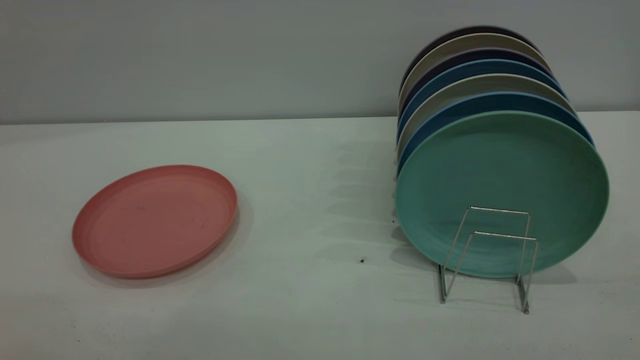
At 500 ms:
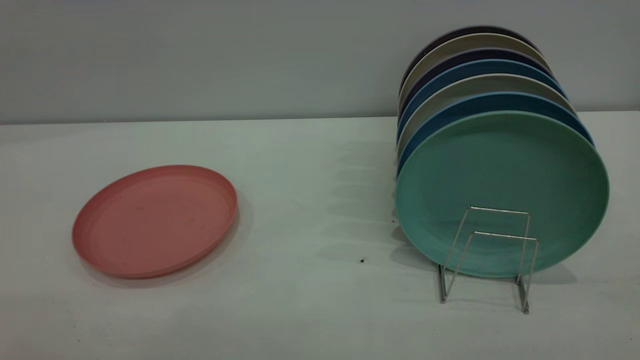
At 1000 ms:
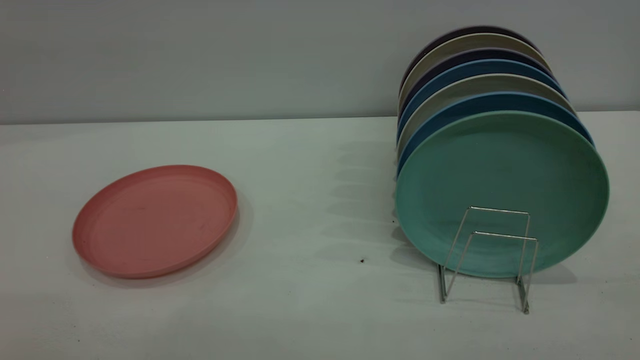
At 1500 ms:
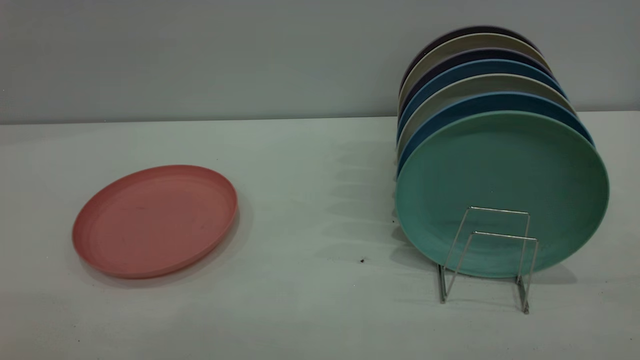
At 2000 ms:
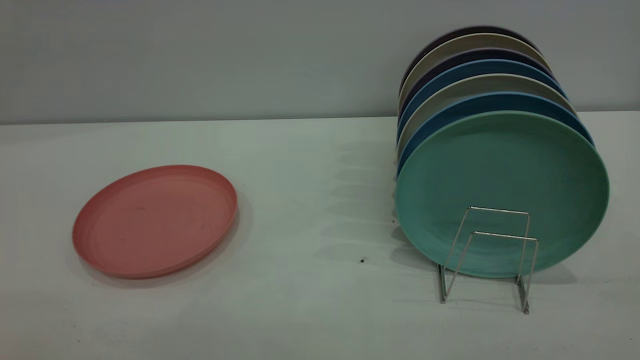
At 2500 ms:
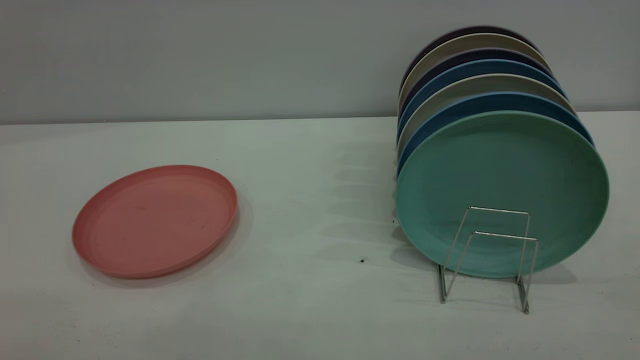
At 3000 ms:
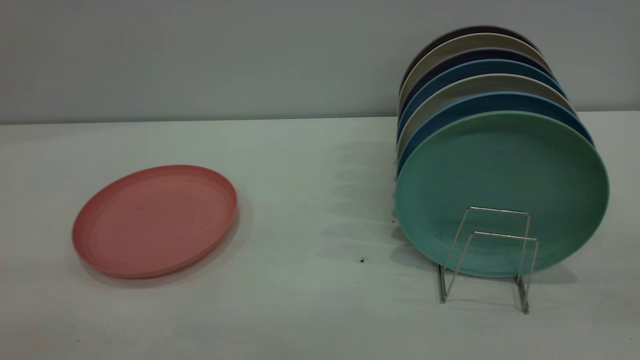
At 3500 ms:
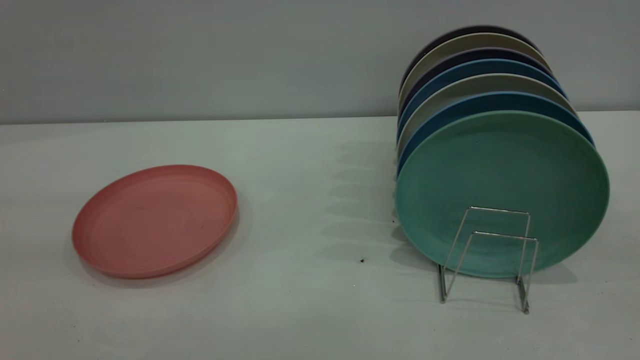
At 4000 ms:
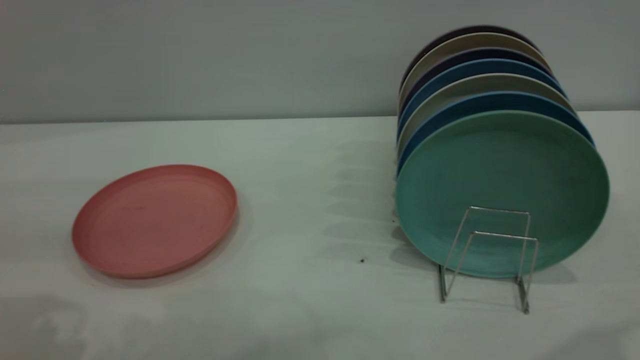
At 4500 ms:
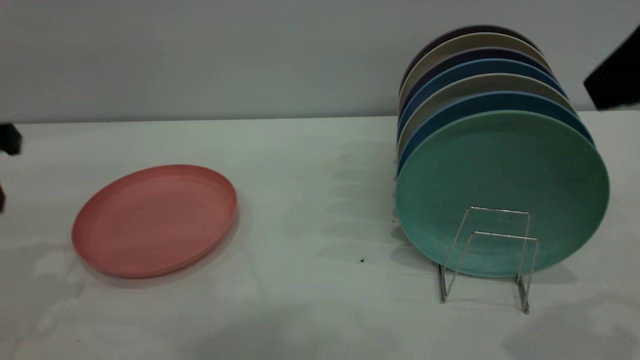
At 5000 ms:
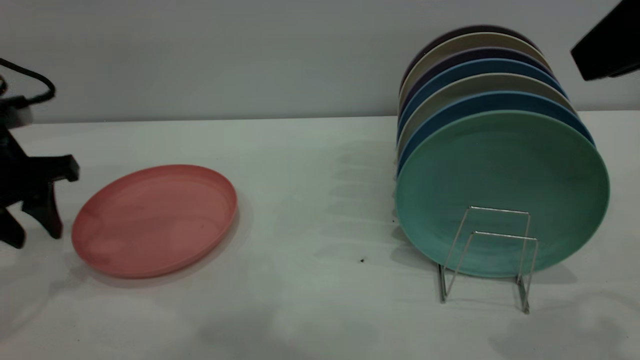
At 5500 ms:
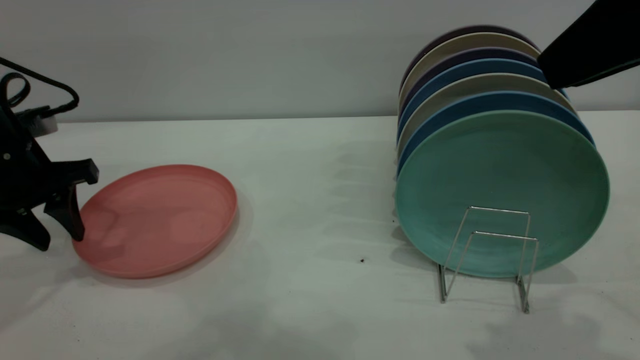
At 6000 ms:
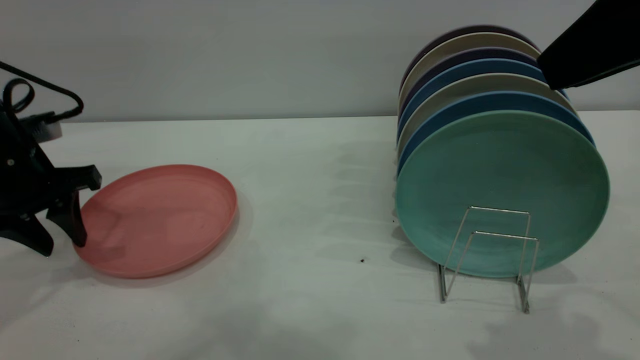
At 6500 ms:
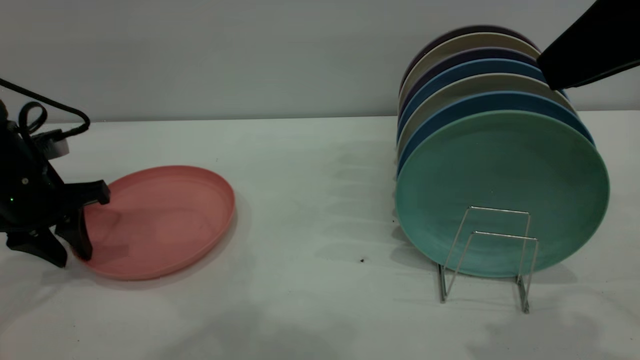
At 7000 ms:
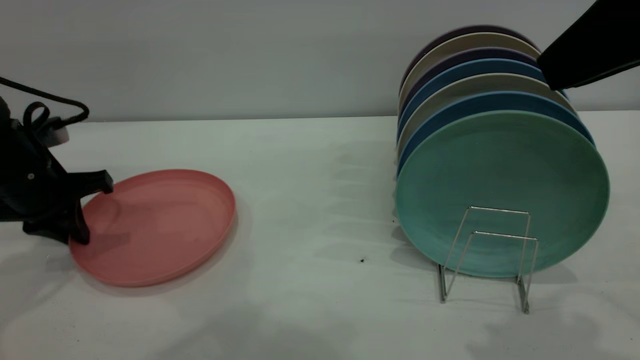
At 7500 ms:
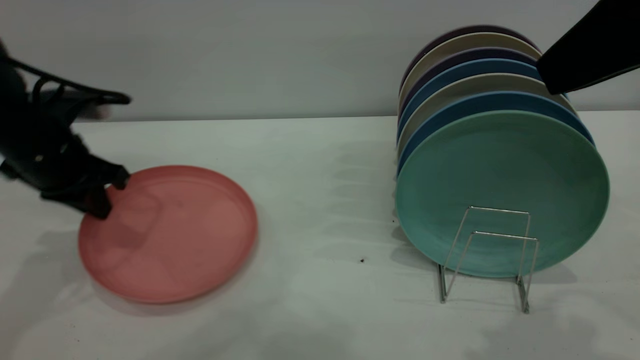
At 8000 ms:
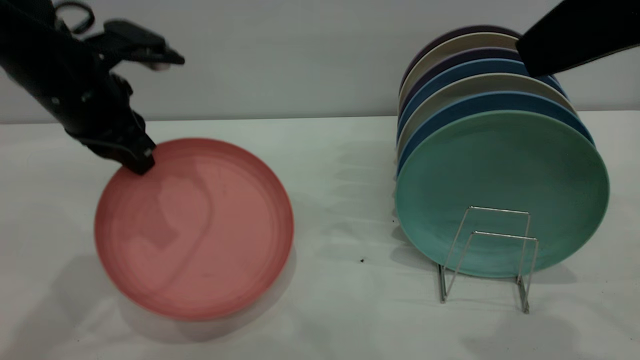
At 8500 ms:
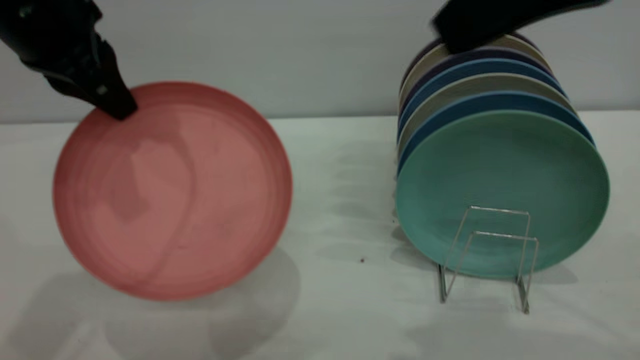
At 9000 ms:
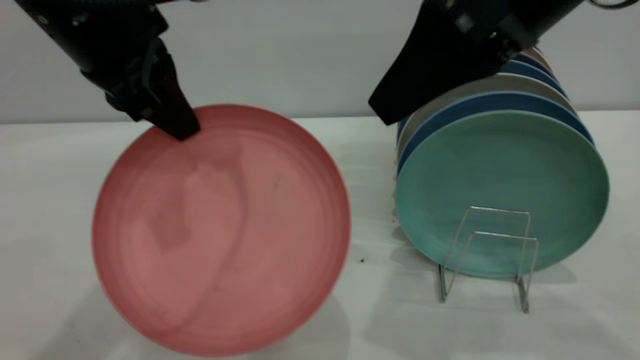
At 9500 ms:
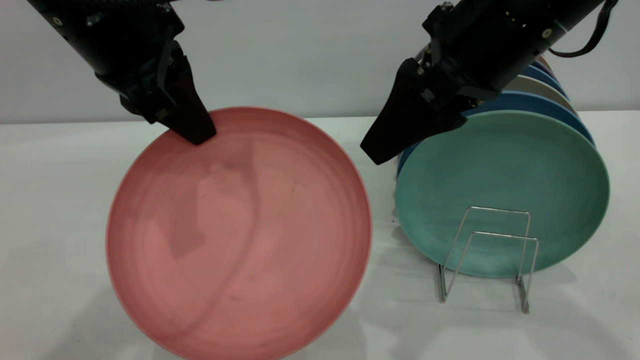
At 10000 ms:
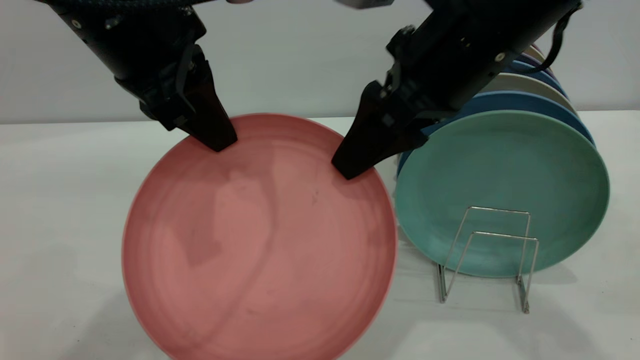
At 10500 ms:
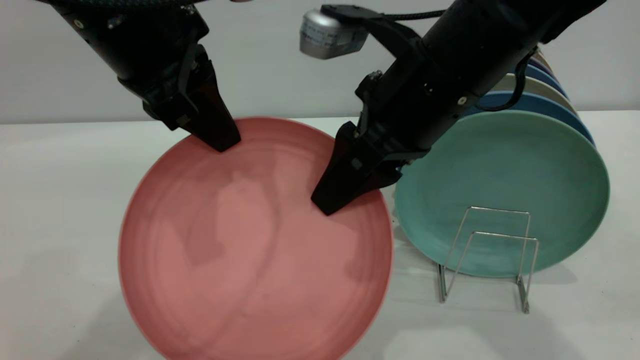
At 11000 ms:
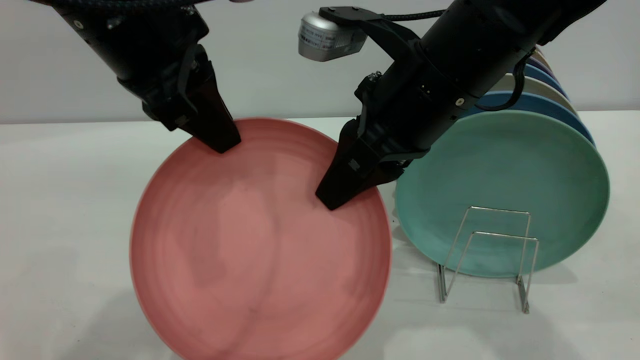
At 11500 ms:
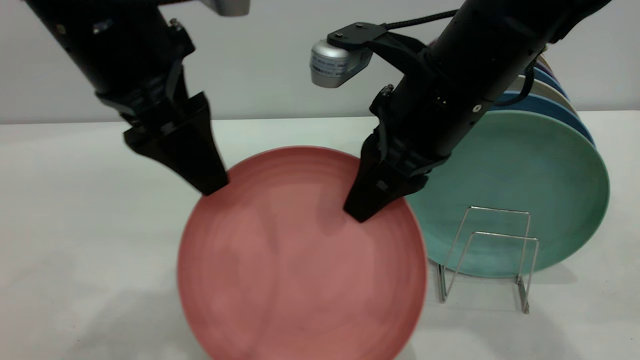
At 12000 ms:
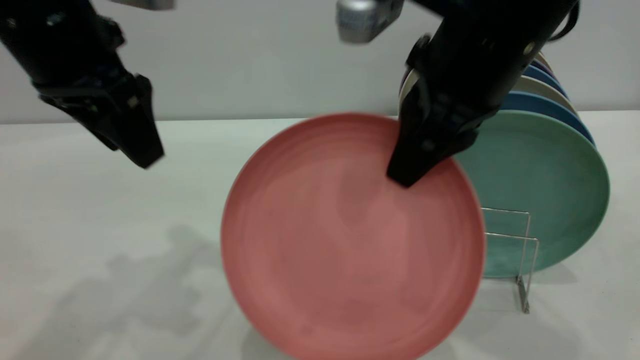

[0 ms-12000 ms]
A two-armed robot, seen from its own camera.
Task of the whole recording: put the plate on the plate rack.
Step, 0 ms to 7500 ms: Pick up the plate with the left gripper.
Step, 8000 ms to 11500 ms: Pass the plate from the left gripper to the right gripper.
4000 ms to 6000 ms: The left gripper travels forward and downward by roughly 20 cm.
6000 ms to 8000 ms: The left gripper heads to the right and upward, covering about 15 cm, and closes its fingers.
8000 ms to 10000 ms: The right gripper moves to the left, forward and downward, roughly 20 cm, and opens up, while the left gripper shifts approximately 15 cm to the right, upward and backward.
10000 ms to 12000 ms: The left gripper travels to the left by about 5 cm, and opens up. The right gripper closes up.

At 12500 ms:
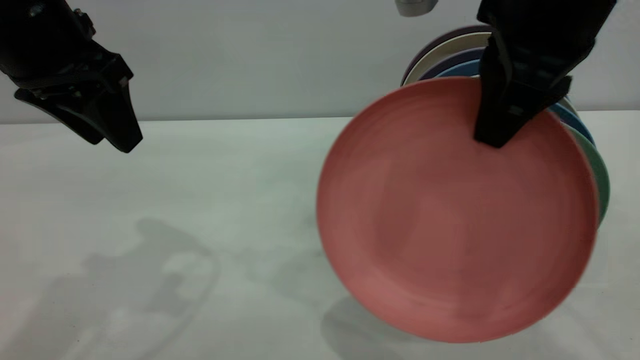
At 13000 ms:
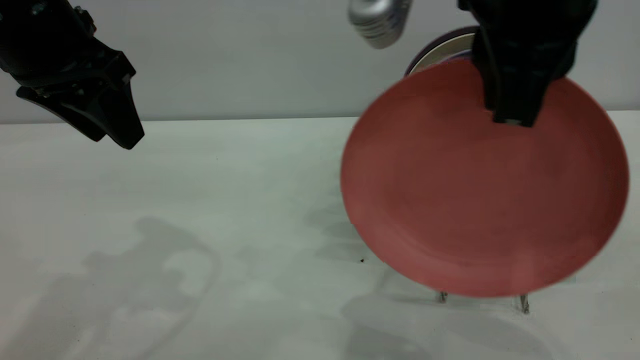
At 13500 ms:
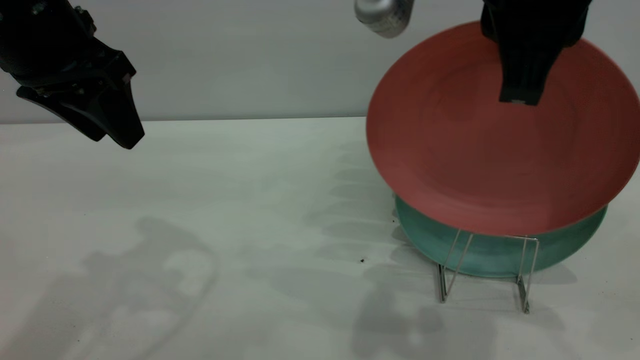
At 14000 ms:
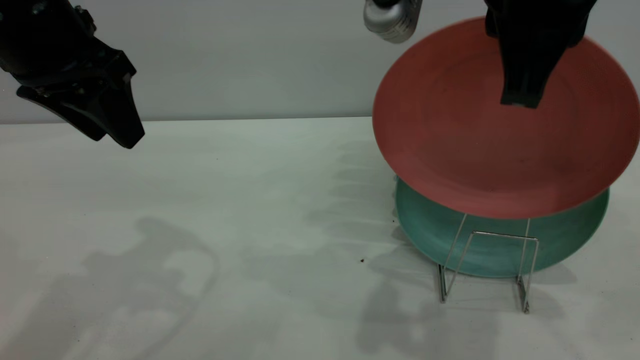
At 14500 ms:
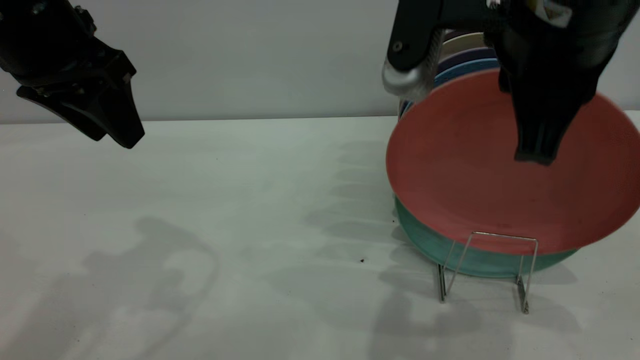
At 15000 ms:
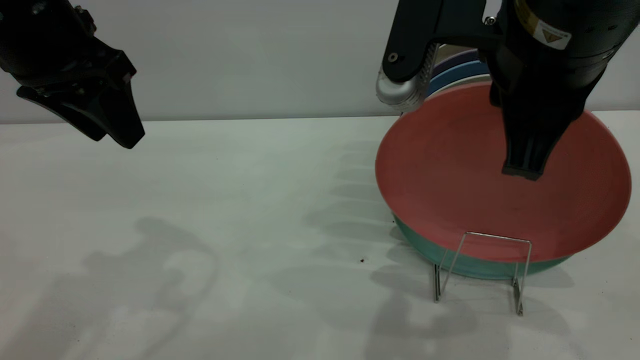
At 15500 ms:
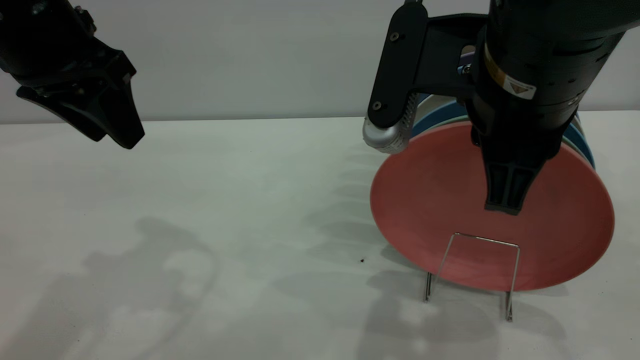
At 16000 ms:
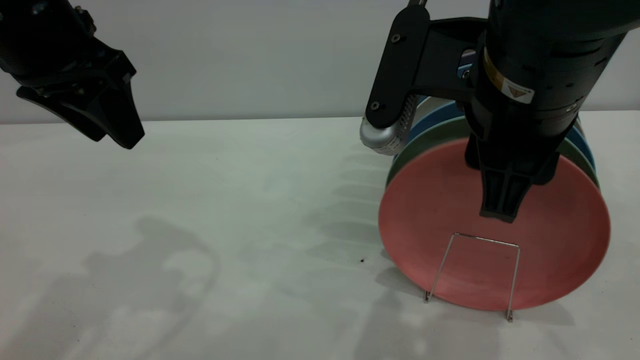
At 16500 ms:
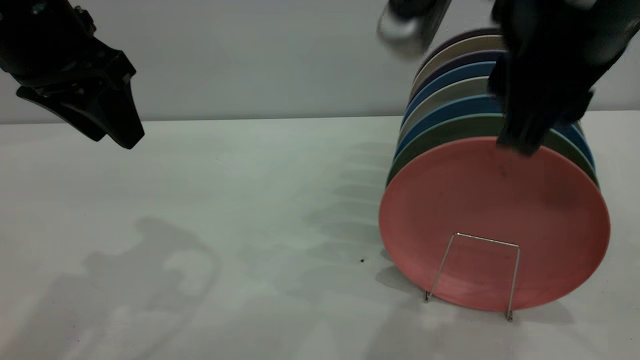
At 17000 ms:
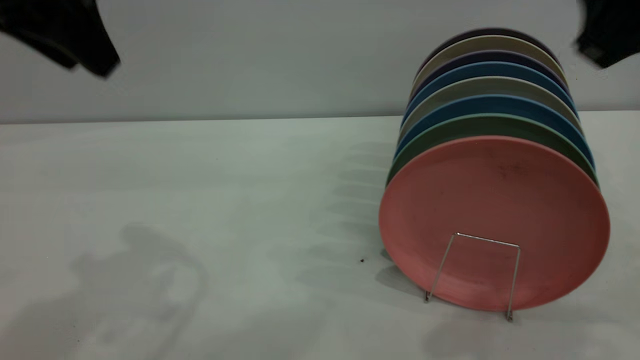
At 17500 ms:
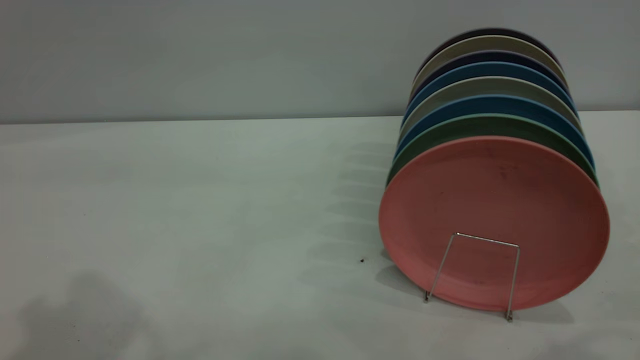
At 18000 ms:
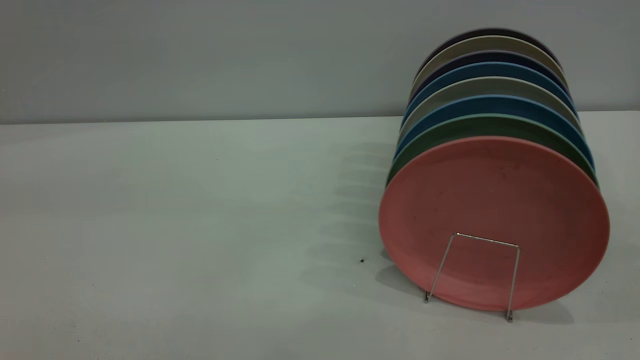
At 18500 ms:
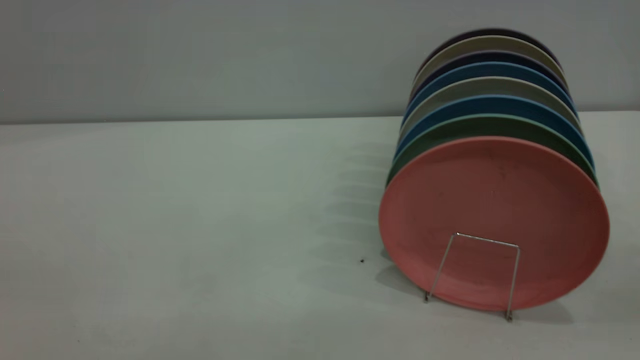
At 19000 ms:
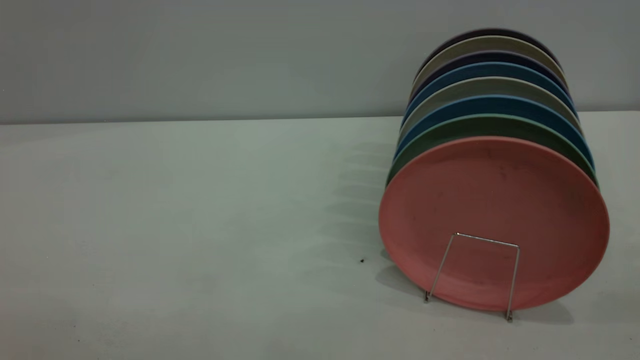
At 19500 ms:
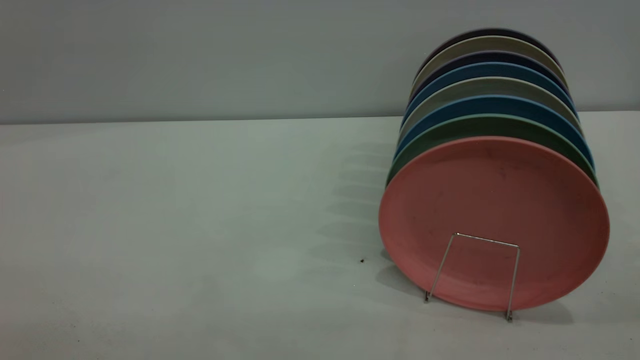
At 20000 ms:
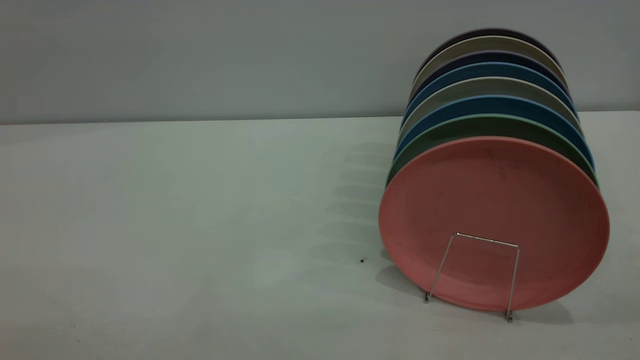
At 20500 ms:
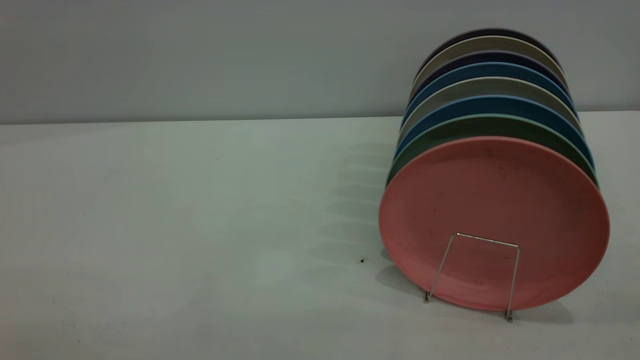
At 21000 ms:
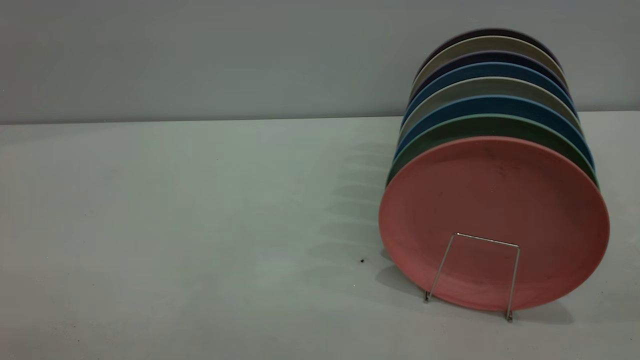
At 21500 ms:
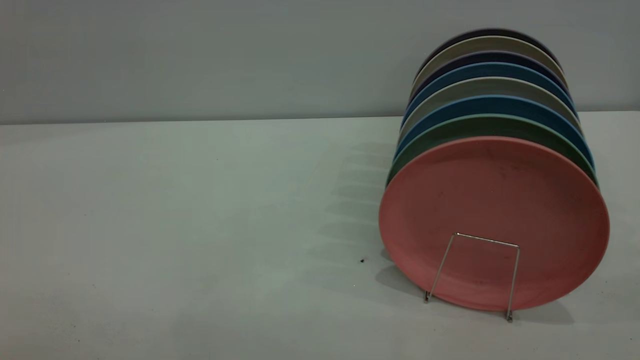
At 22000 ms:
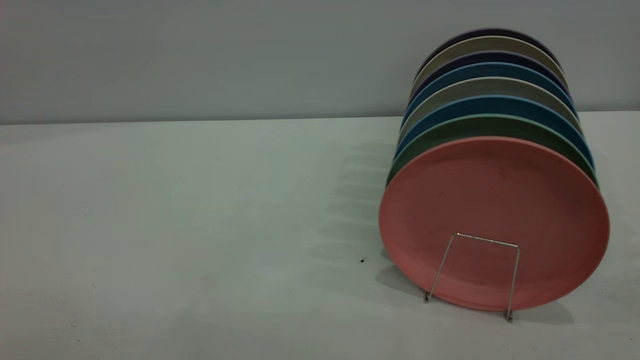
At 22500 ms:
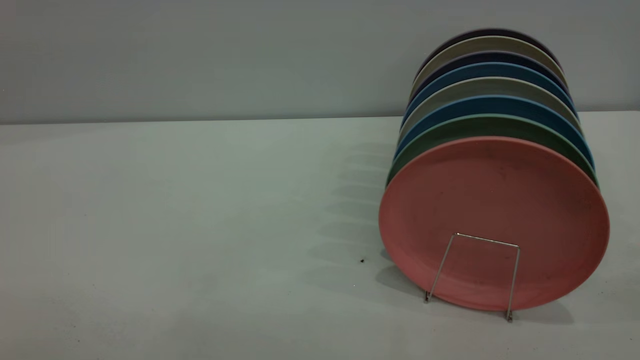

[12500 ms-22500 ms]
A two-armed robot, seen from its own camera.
Task of the whole recording: put the plate on the plate rack.
Step, 12500 ms to 16500 ms: Place the plate on the shelf.
12500 ms to 14500 ms: The right gripper moves approximately 5 cm.
14500 ms to 16500 ms: The right gripper opens up.
16500 ms to 18500 ms: The right gripper shifts about 30 cm backward, to the right and upward; the left gripper goes about 35 cm backward and upward.
